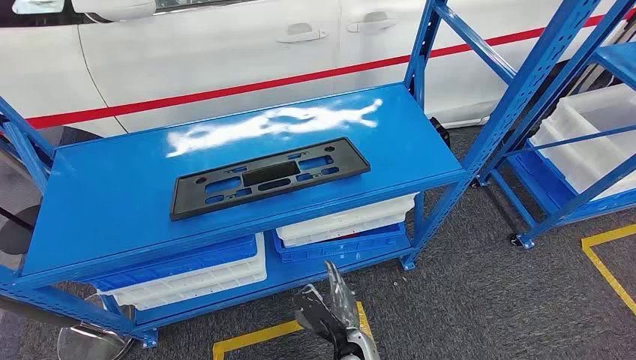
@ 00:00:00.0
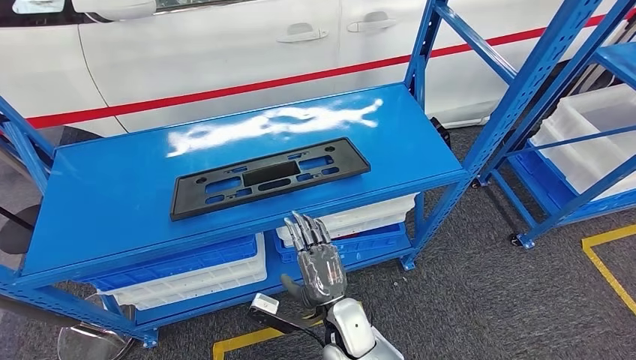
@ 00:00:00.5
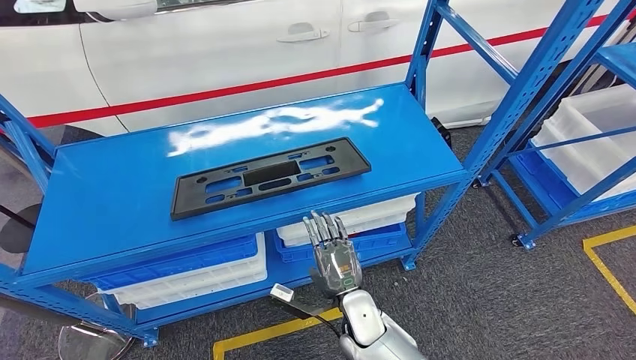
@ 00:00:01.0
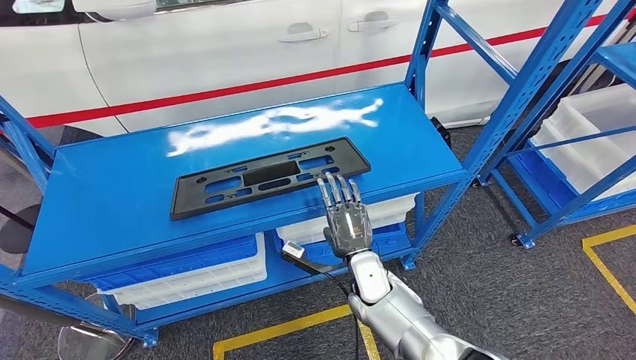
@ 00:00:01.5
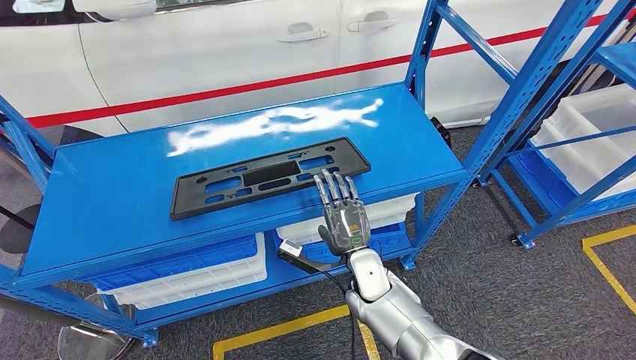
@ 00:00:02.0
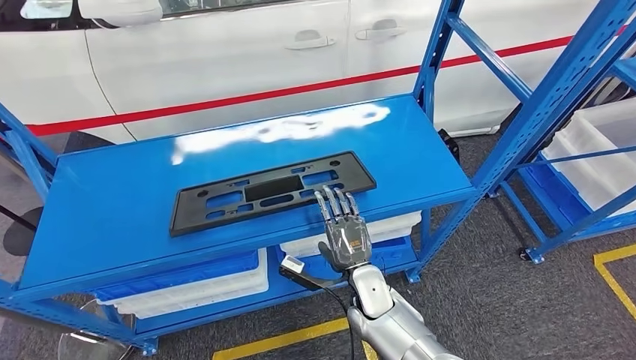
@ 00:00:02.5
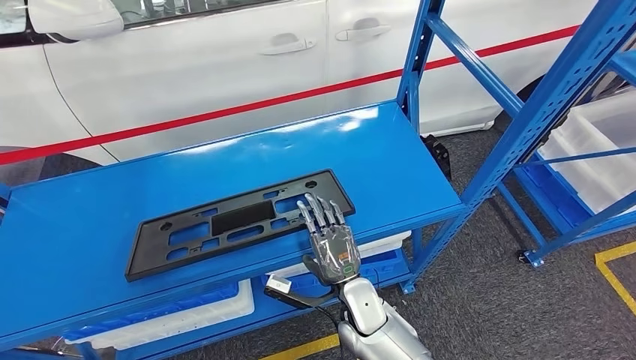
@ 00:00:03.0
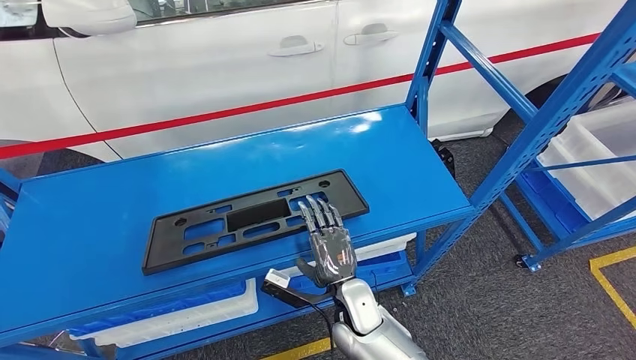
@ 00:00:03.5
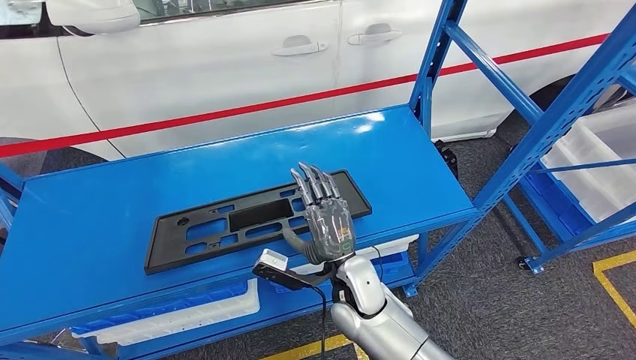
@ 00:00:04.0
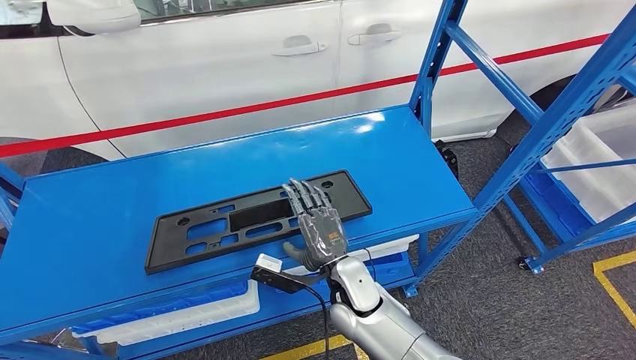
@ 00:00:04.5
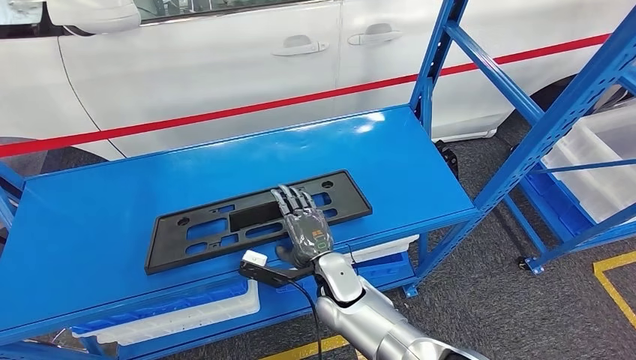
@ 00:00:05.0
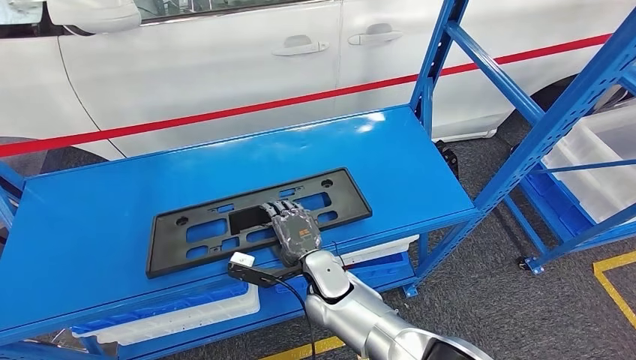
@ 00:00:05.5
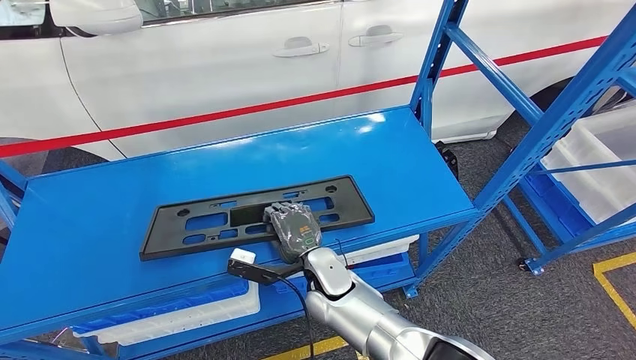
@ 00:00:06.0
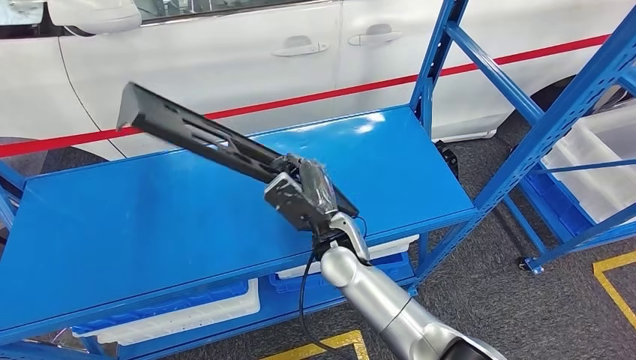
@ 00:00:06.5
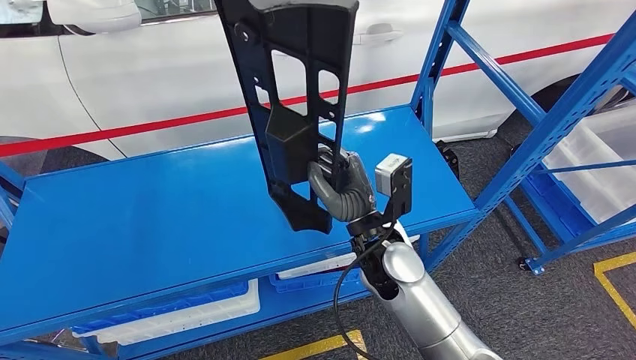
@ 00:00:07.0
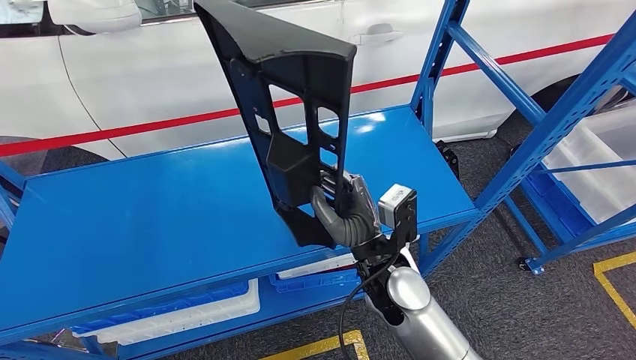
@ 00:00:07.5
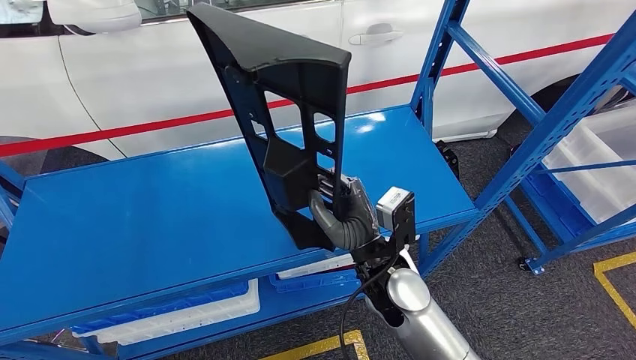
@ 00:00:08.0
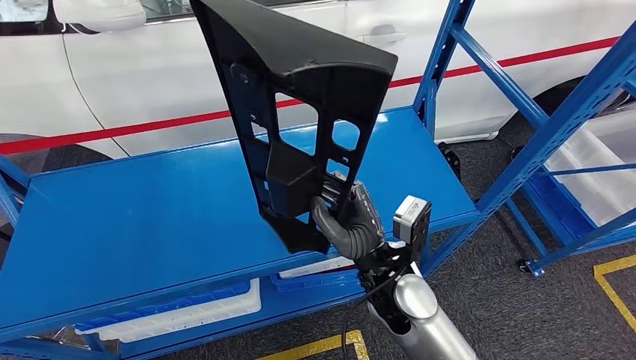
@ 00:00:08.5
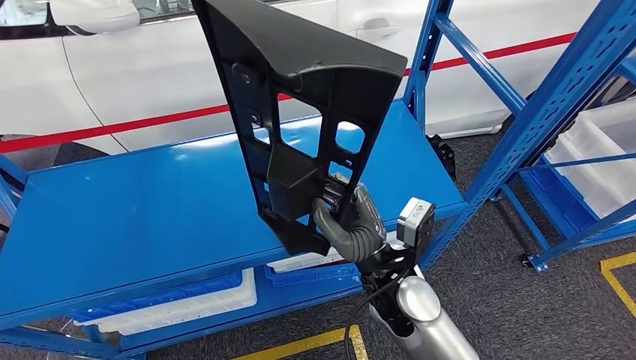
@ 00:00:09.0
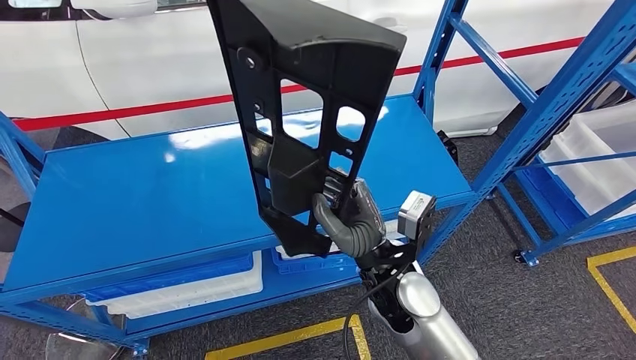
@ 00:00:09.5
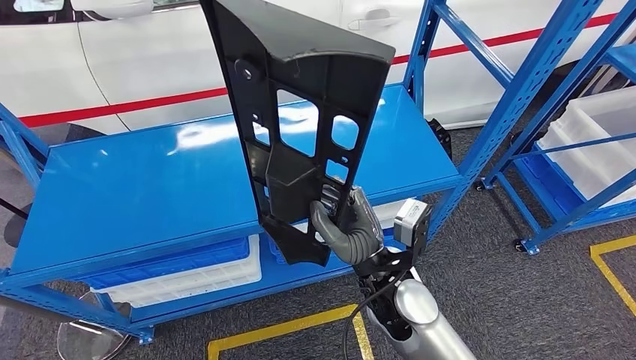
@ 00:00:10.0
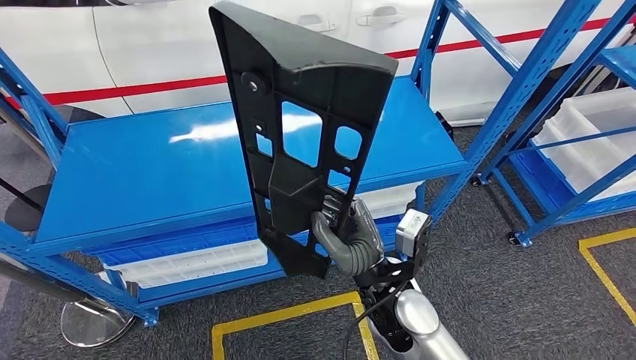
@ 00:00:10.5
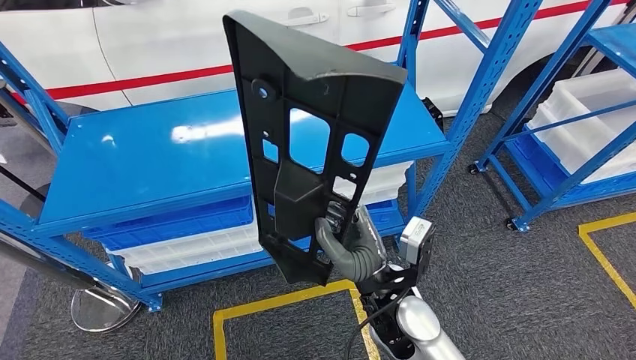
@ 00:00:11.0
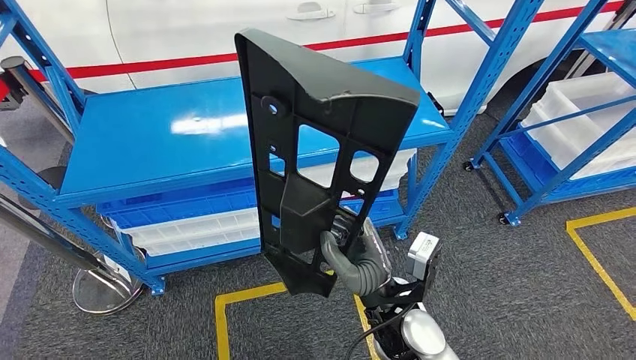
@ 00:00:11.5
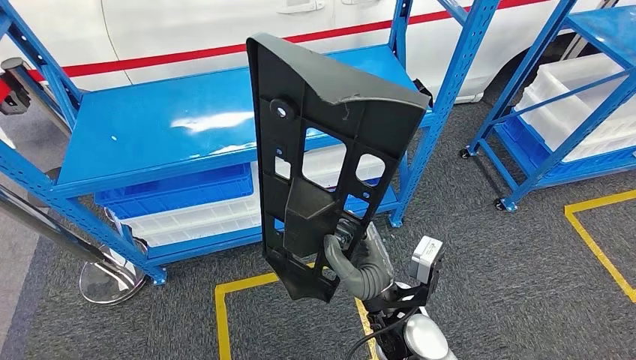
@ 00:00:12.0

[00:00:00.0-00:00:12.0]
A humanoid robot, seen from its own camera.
Step, 00:00:00.0 to 00:00:10.5: Pick up the large material from the shelf.
00:00:04.0 to 00:00:06.0: The right hand ends up roughly 5 cm from where it was.

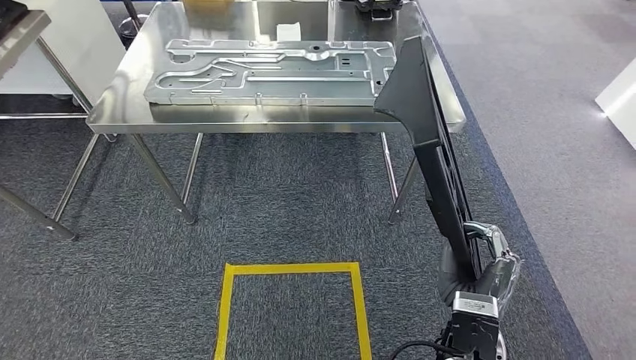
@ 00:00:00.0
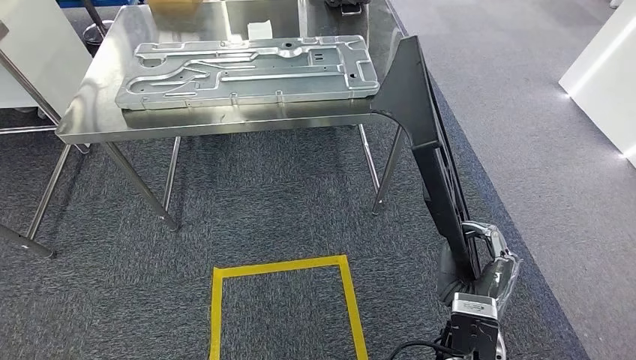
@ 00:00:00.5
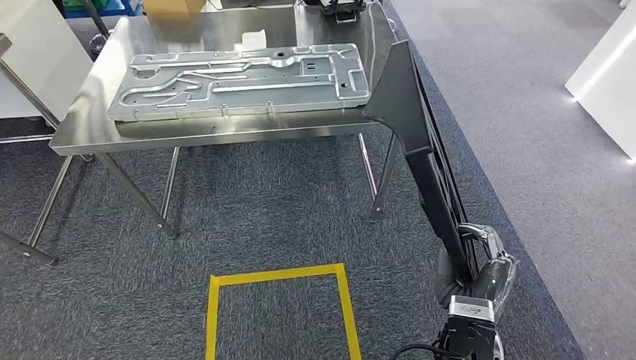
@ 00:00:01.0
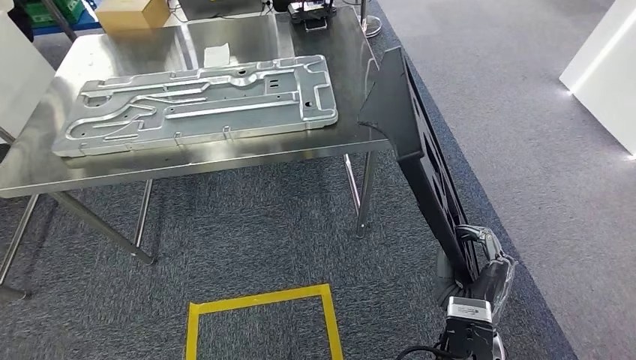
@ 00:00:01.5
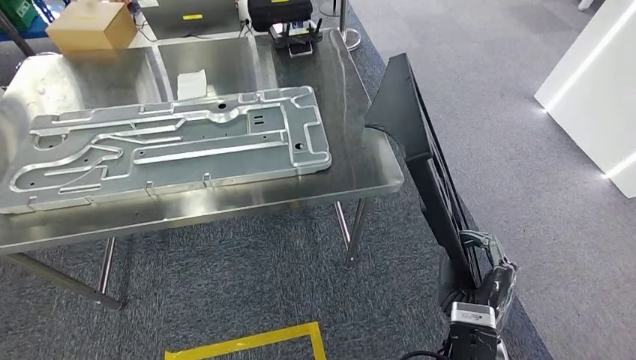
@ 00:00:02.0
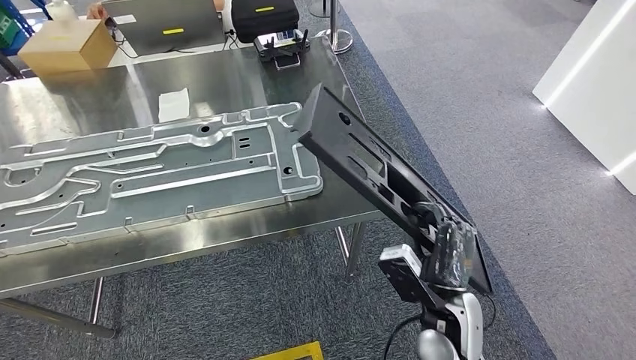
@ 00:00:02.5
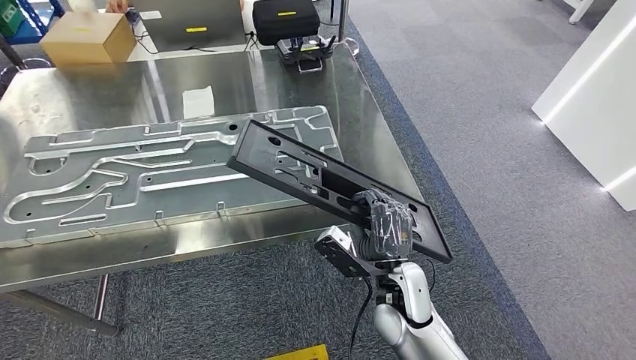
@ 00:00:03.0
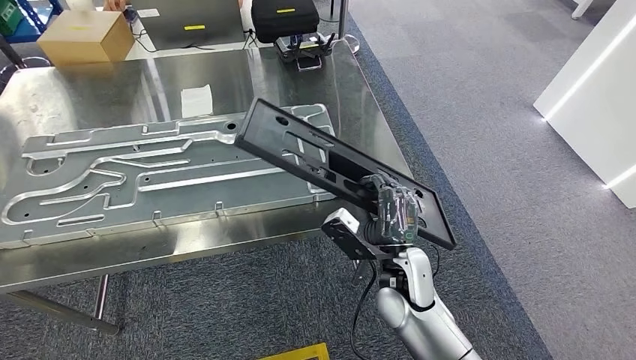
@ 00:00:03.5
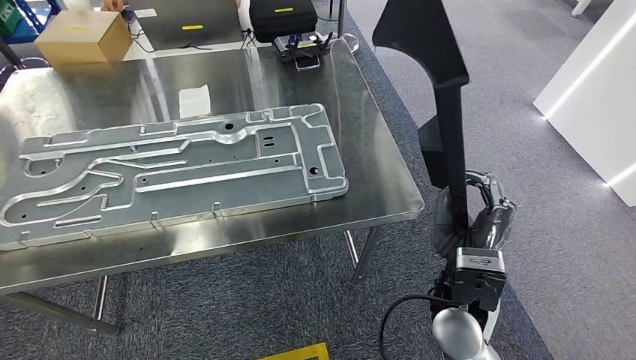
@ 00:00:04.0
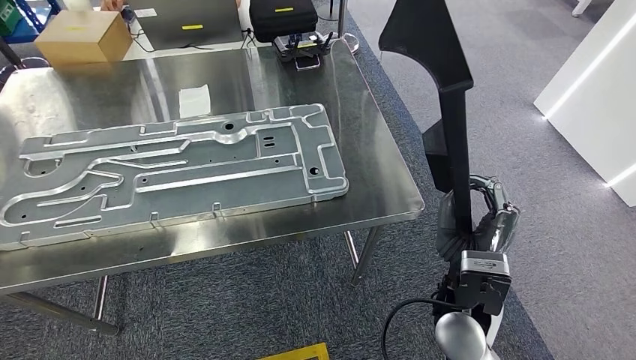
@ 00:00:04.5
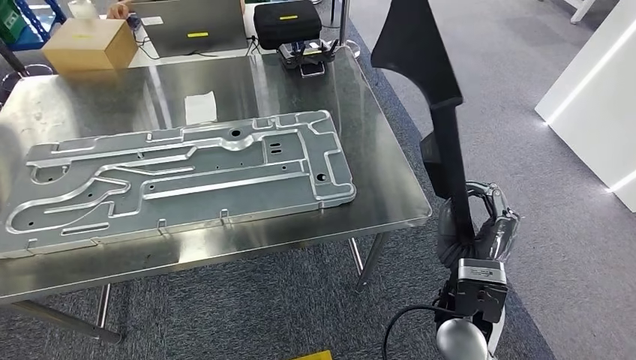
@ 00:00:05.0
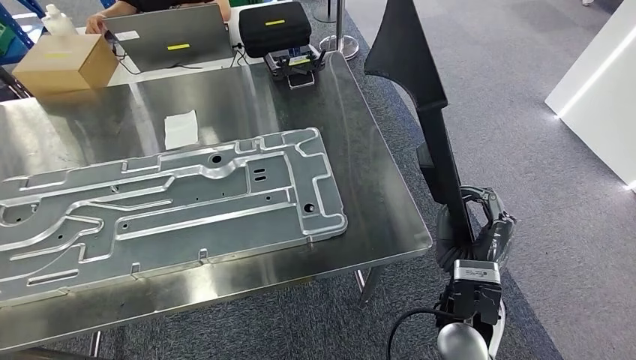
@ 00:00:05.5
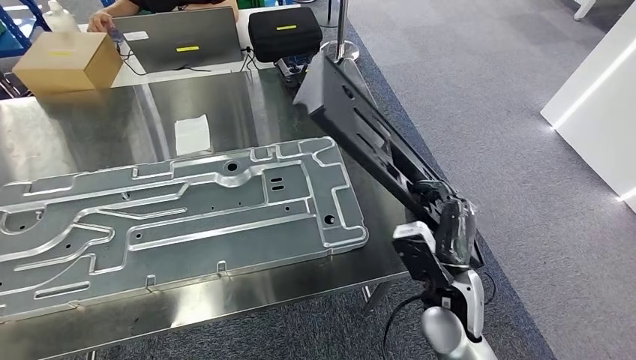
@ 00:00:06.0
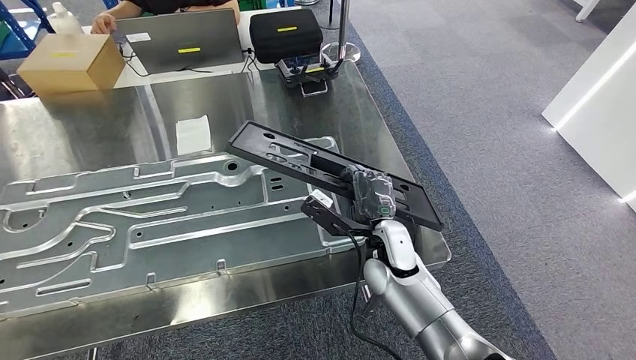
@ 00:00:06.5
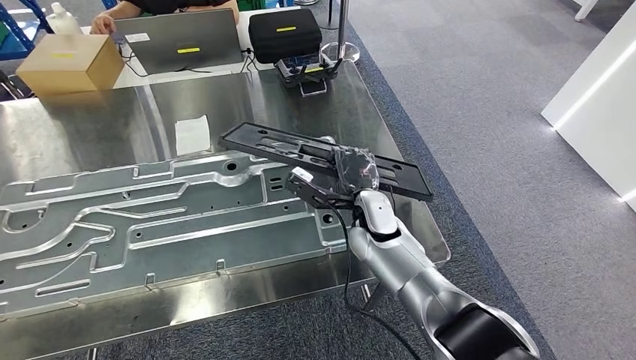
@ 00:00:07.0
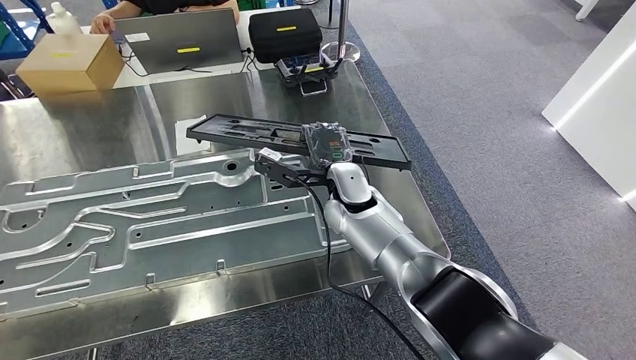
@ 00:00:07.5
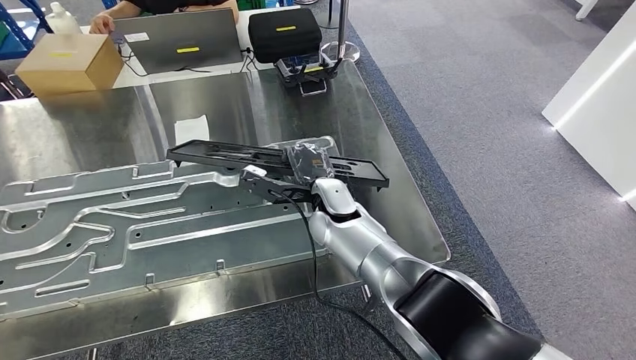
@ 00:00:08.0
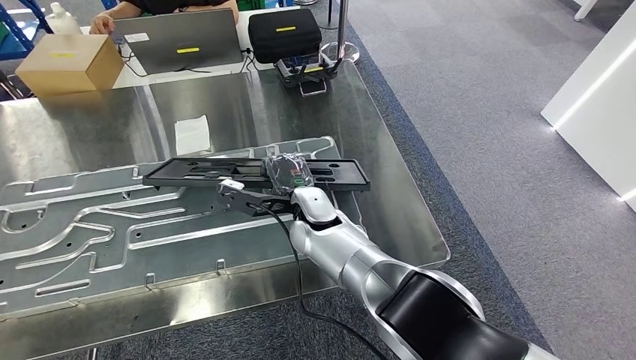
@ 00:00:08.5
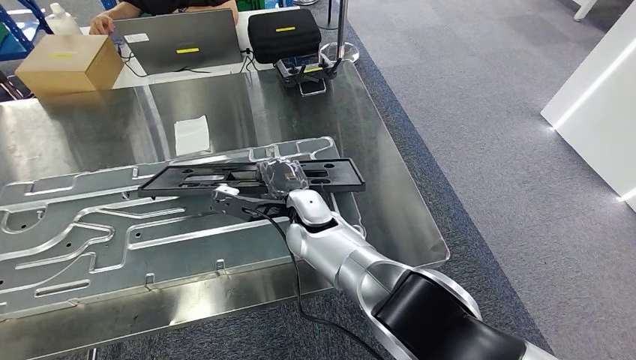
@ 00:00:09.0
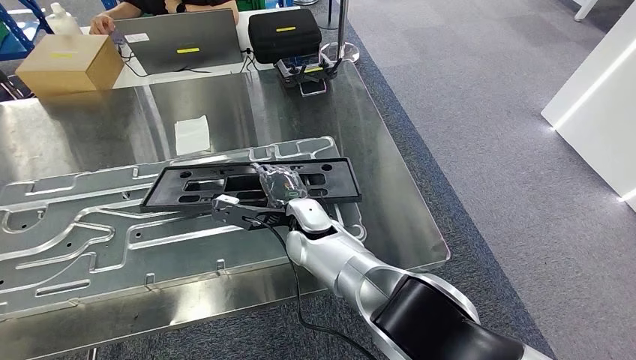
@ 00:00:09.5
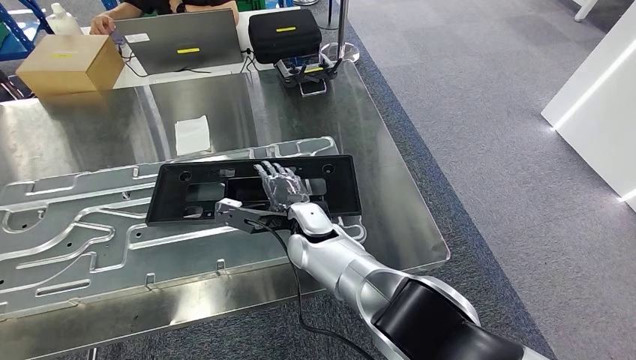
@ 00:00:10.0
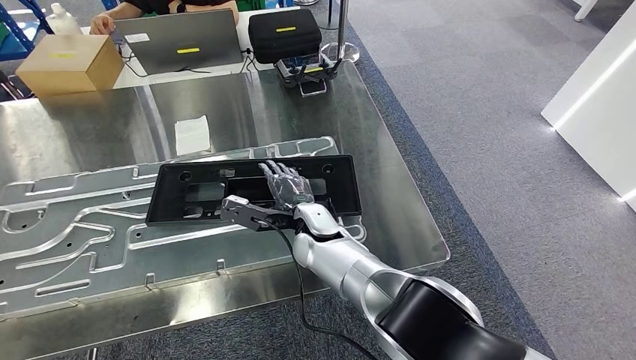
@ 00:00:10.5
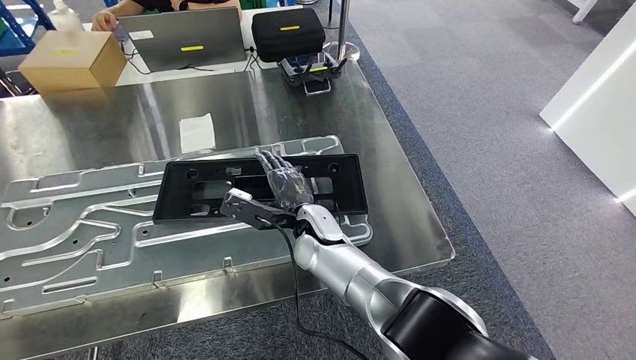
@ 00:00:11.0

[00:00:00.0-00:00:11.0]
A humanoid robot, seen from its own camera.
Step, 00:00:00.0 to 00:00:02.5: Move the large material to the workbench.
00:00:07.5 to 00:00:09.0: The right hand moves to the left, about 10 cm.
00:00:09.0 to 00:00:11.0: The hands stay close to where they were, moving slightly.
